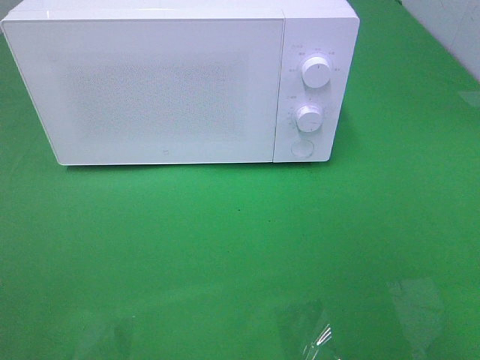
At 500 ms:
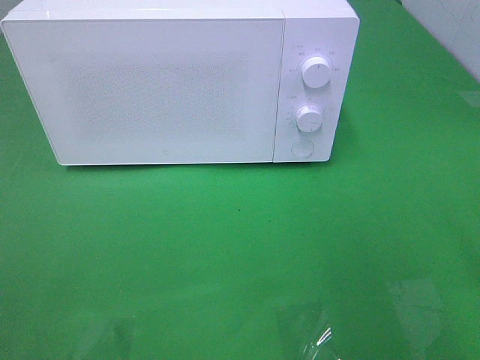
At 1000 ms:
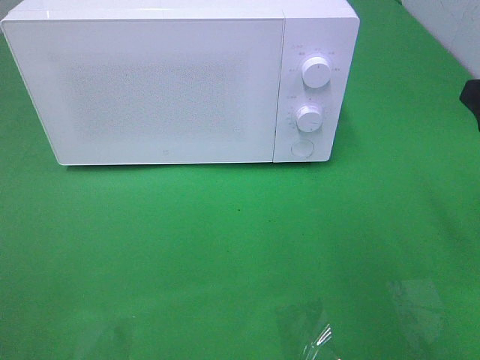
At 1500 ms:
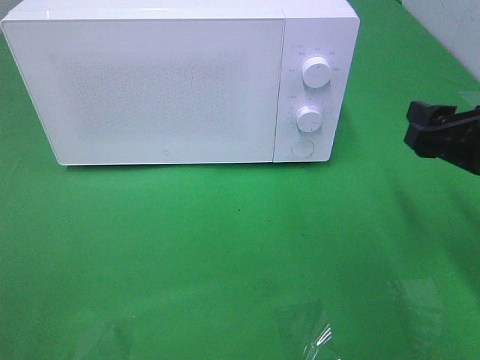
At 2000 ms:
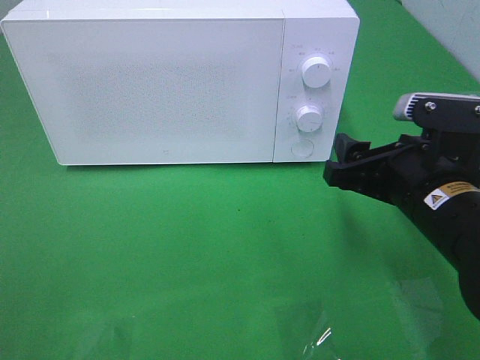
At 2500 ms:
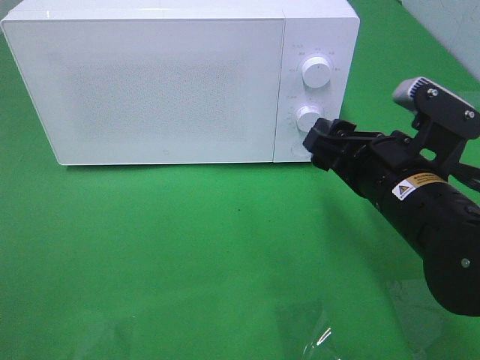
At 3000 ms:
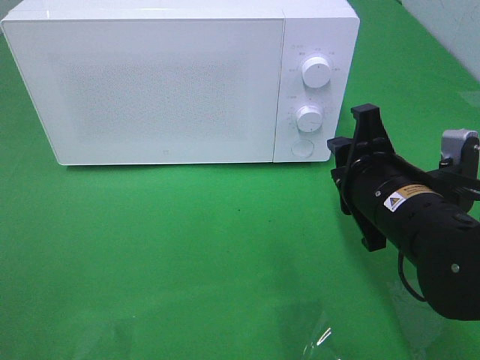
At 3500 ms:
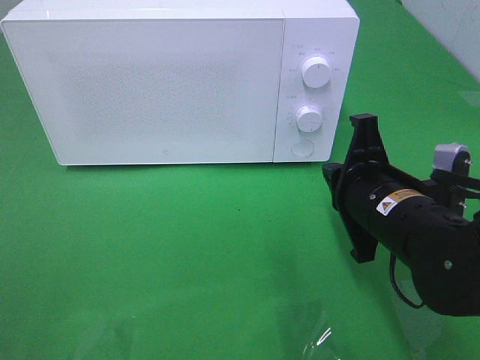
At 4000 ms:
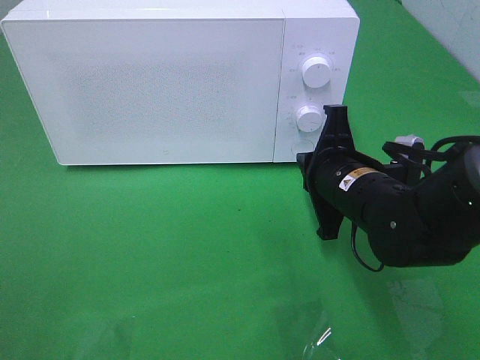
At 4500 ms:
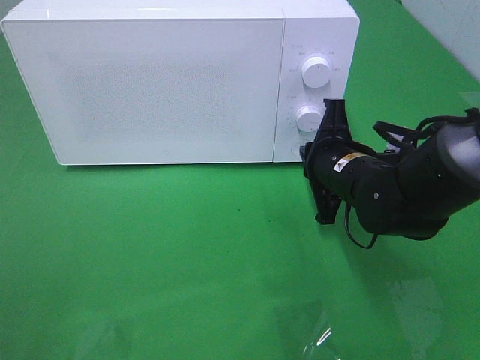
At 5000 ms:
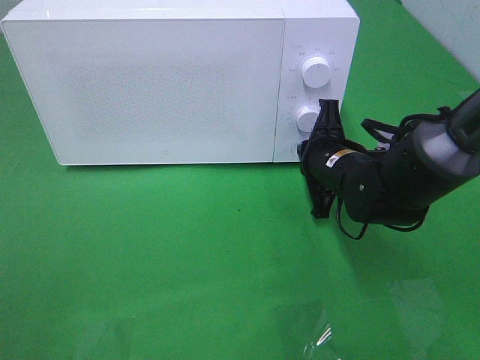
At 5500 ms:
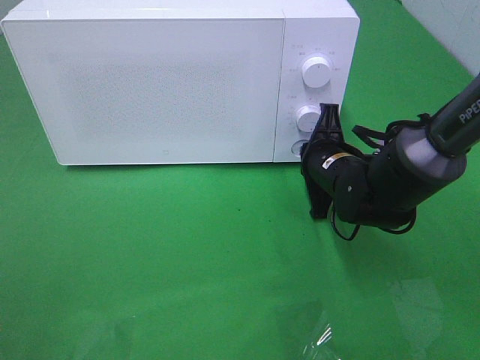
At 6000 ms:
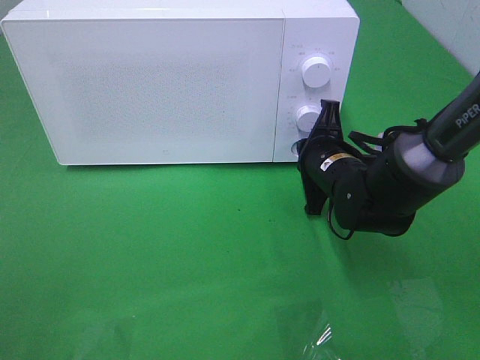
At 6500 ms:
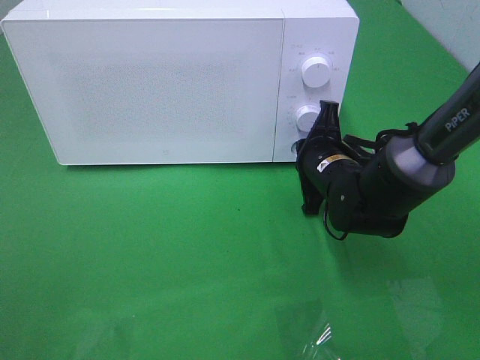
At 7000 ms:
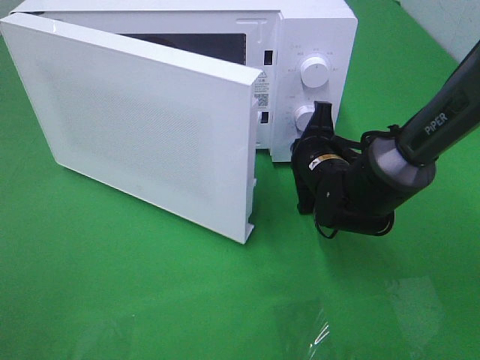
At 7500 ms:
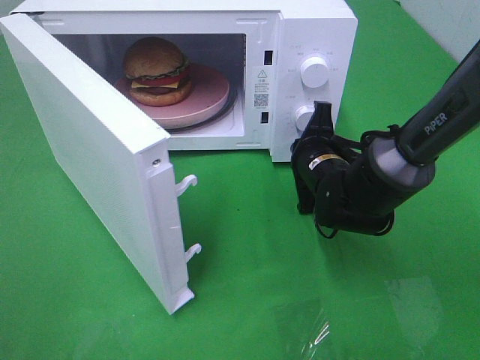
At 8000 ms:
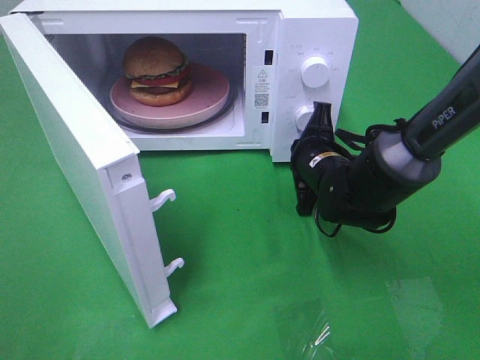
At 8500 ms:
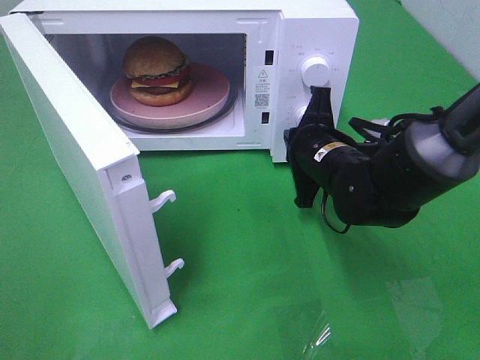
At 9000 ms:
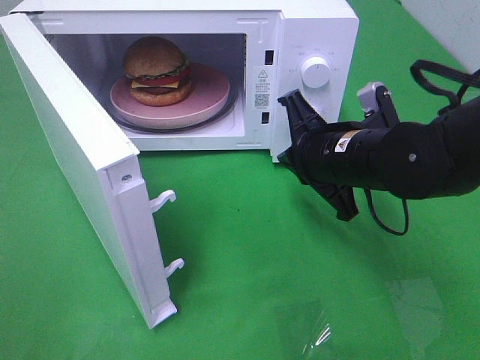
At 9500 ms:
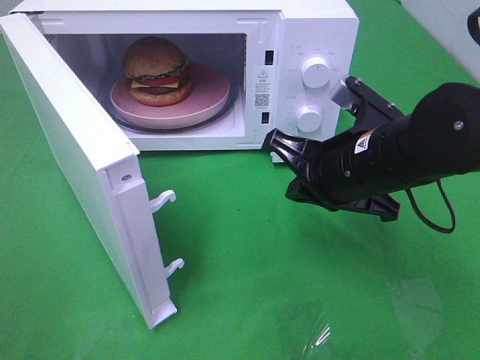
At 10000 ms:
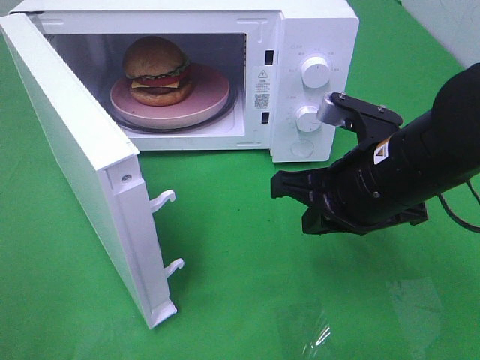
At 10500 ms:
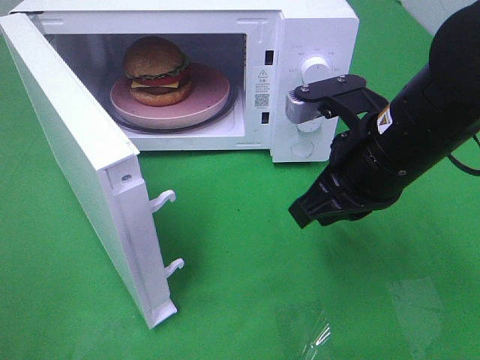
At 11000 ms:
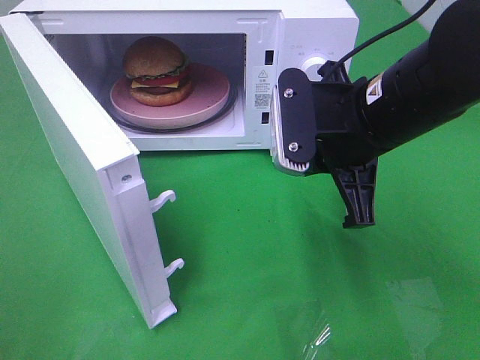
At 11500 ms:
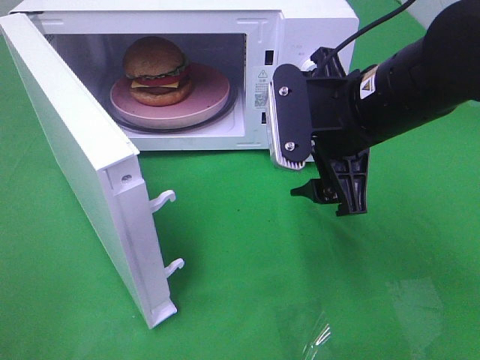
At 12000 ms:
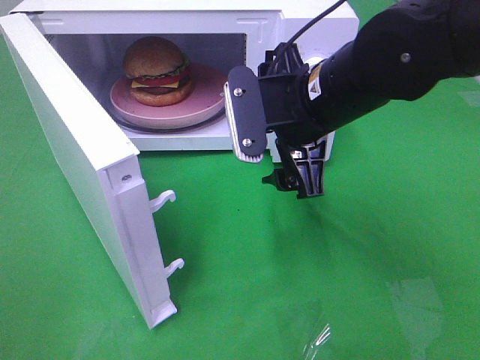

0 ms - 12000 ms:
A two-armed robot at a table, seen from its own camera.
Task of the whole recording: Heat the burger.
Step, 0 ms - 8500 ms: Right hand: press the switch.
0 ms - 2000 ms: The right gripper moves forward, downward and to the left, approximately 25 cm.
2000 ms - 4000 ms: The right gripper travels forward by roughly 5 cm, and closes up.
4000 ms - 6000 ms: The right gripper heads forward, covering roughly 5 cm.
8000 ms - 10000 ms: The right gripper shifts about 15 cm backward and upward.
10000 ms - 12000 ms: The right gripper heads forward and to the left, covering about 10 cm, and opens up.

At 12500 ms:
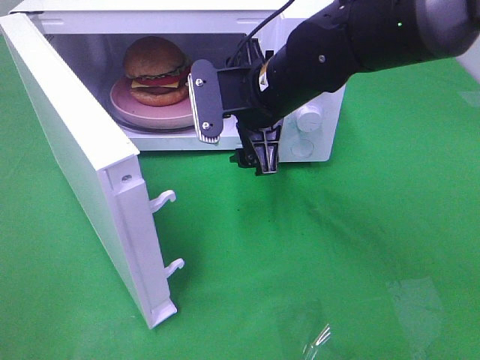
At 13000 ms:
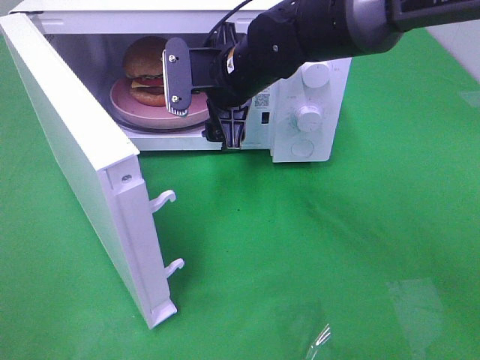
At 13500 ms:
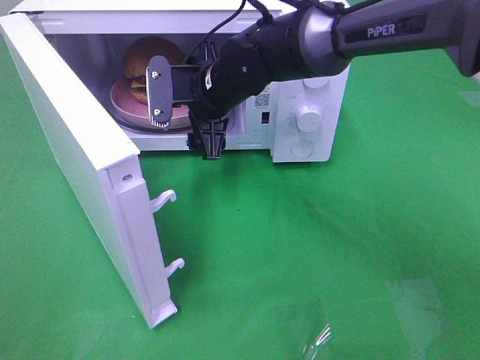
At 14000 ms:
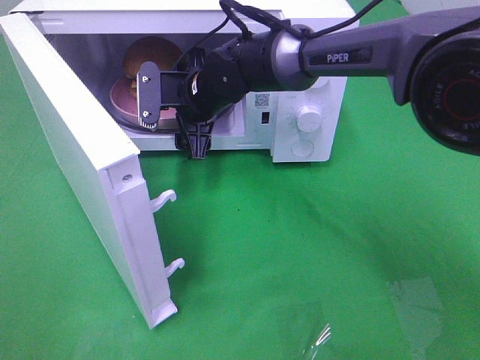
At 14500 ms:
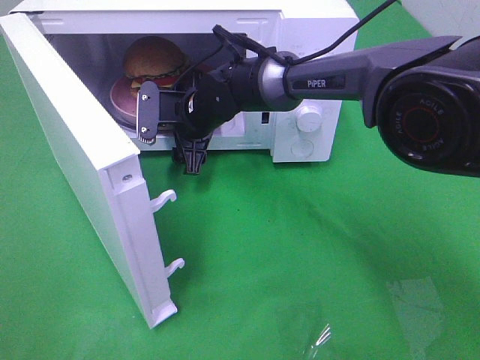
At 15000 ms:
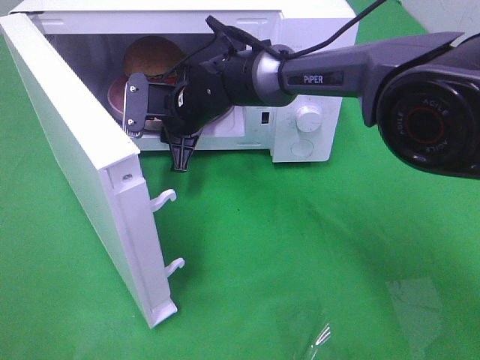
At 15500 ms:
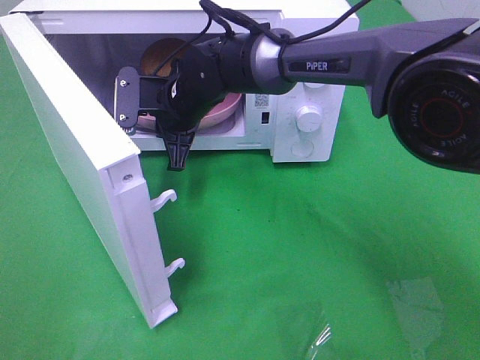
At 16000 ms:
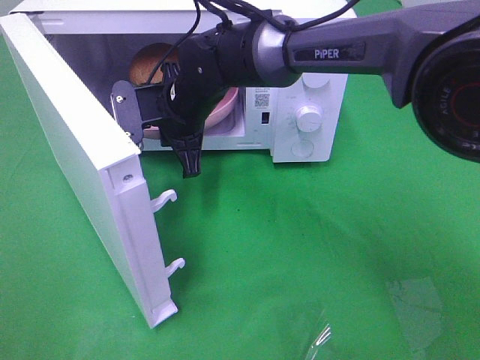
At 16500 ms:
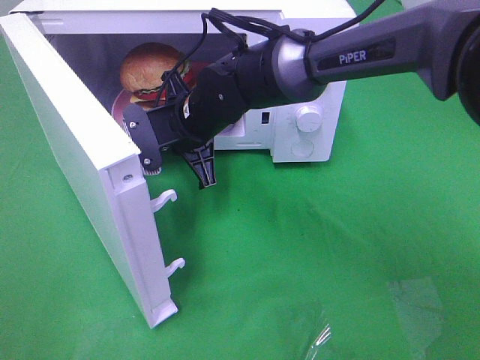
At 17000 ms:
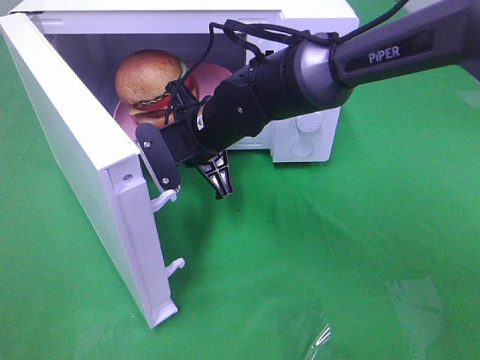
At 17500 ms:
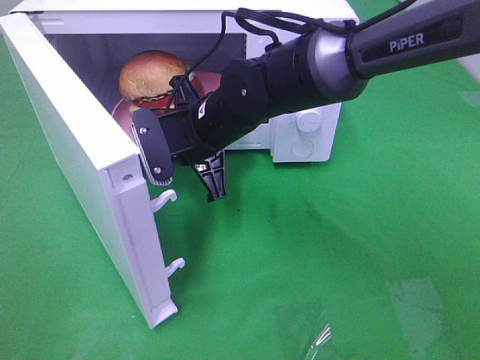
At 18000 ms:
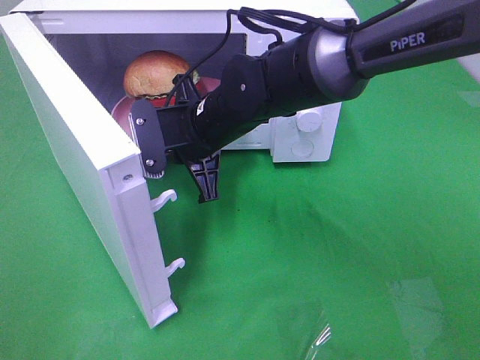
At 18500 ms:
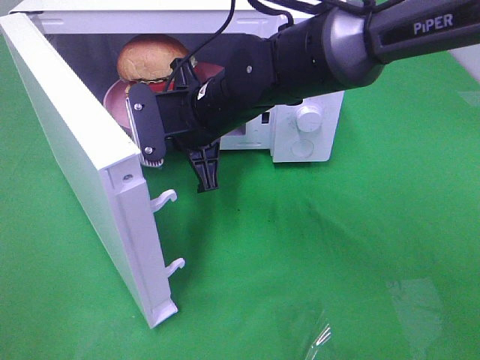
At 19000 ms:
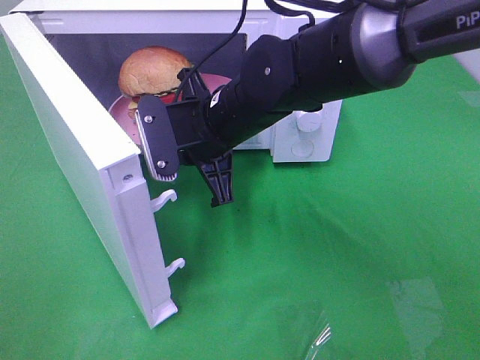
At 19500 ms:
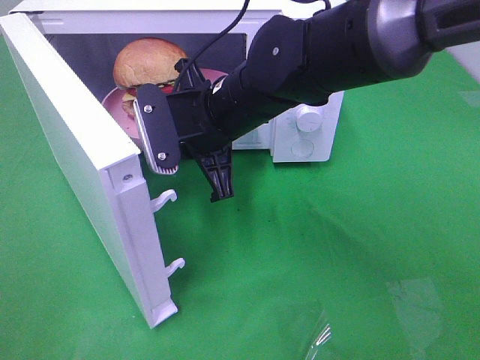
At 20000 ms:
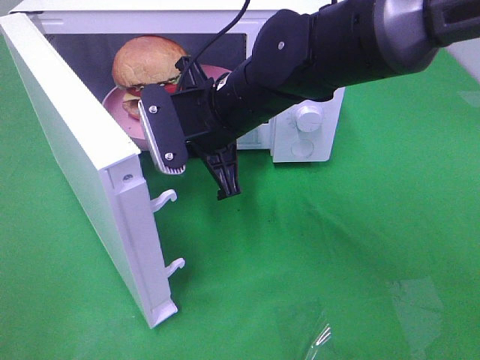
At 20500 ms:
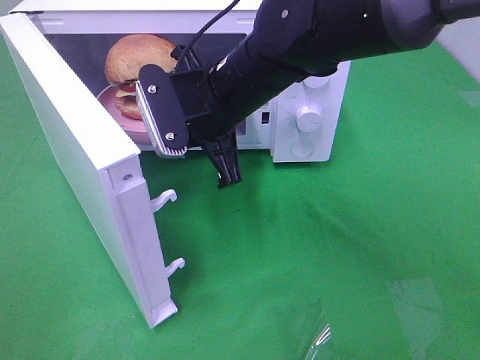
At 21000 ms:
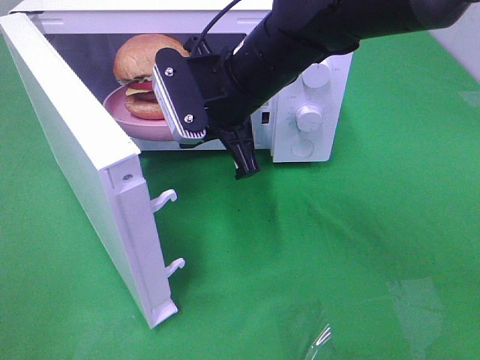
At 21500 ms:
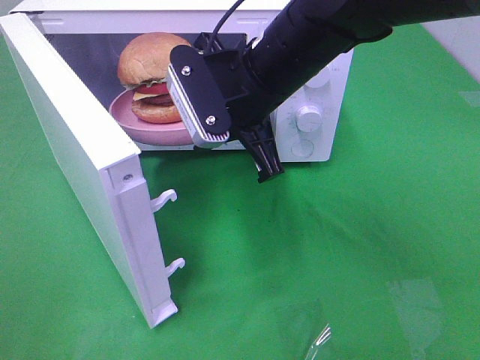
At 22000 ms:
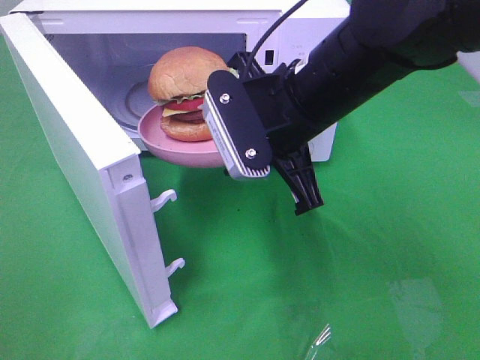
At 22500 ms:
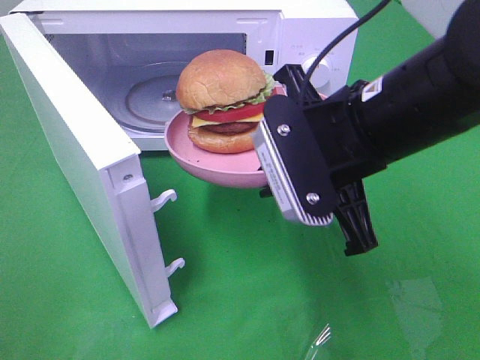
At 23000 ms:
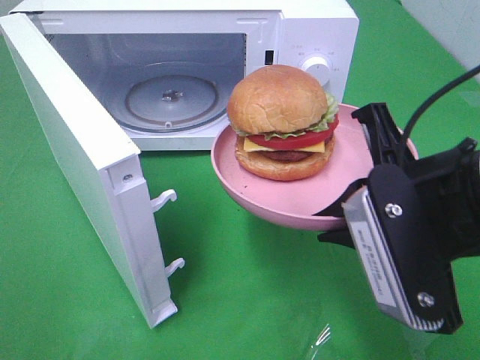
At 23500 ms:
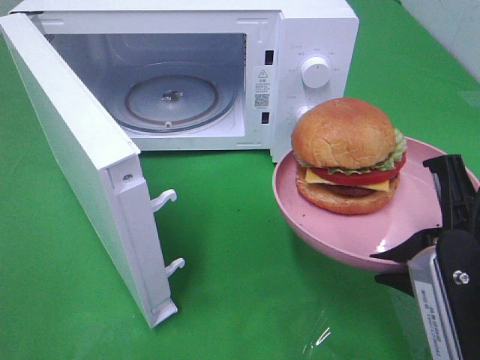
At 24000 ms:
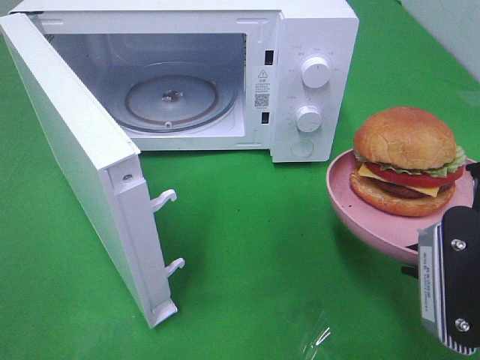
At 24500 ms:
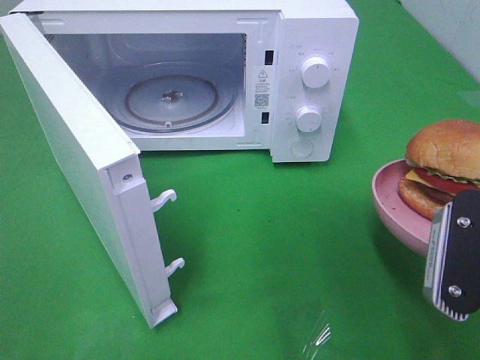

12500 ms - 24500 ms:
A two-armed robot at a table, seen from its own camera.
Task of the whole recording: Heat the burger.
Step, 12500 ms - 15000 ms: Right hand: grab the plate with the hamburger.
12500 ms - 14500 ms: The right gripper goes about 15 cm forward, downward and to the left.
14500 ms - 16500 ms: The right gripper heads backward, covering about 5 cm, and closes its fingers.
16500 ms - 18500 ms: The right gripper moves approximately 5 cm.
18500 ms - 20500 ms: The grippers make only small movements.
20500 ms - 22500 ms: The right gripper travels to the right and backward by roughly 15 cm.
22500 ms - 24500 ms: The right gripper goes about 15 cm to the right, backward and downward.

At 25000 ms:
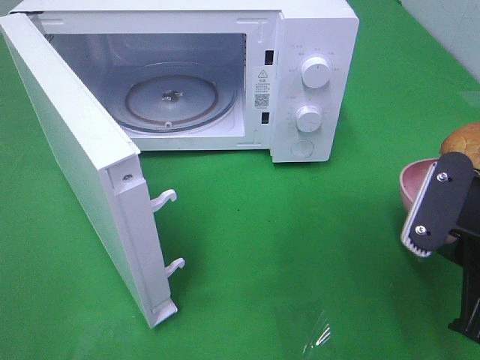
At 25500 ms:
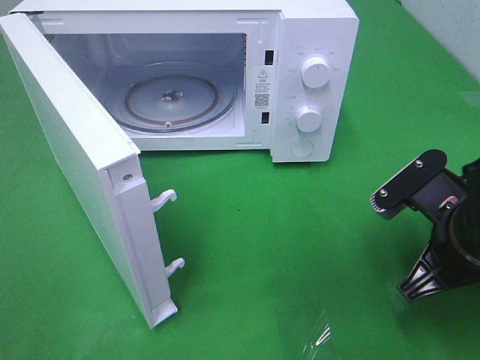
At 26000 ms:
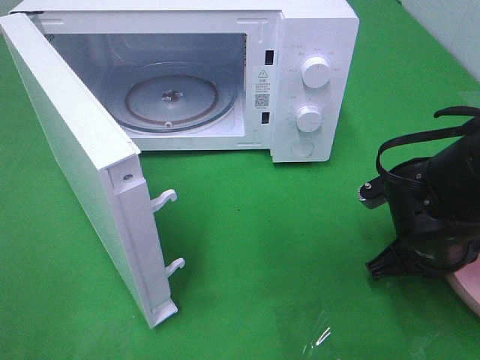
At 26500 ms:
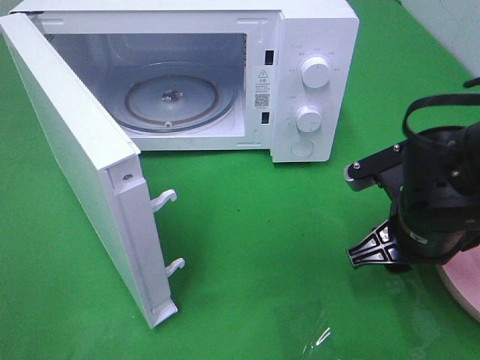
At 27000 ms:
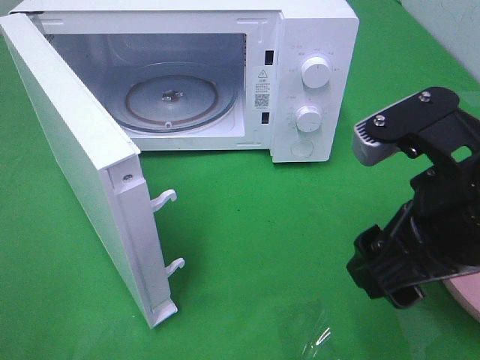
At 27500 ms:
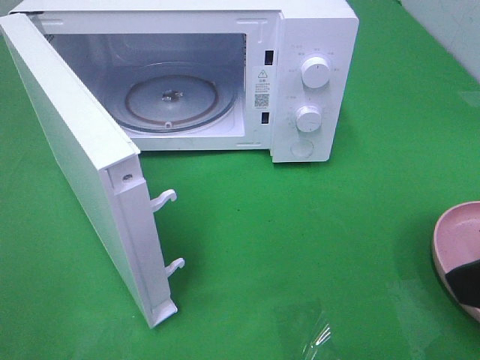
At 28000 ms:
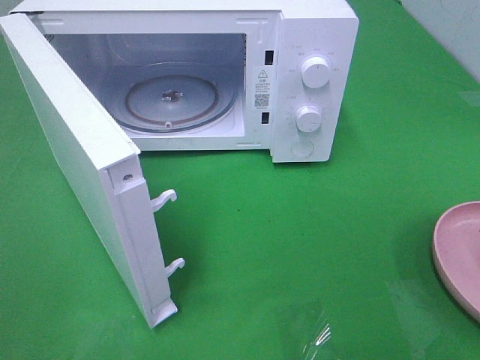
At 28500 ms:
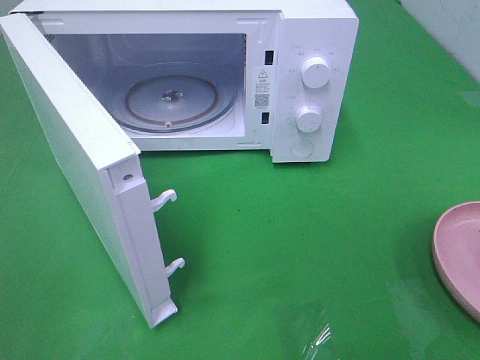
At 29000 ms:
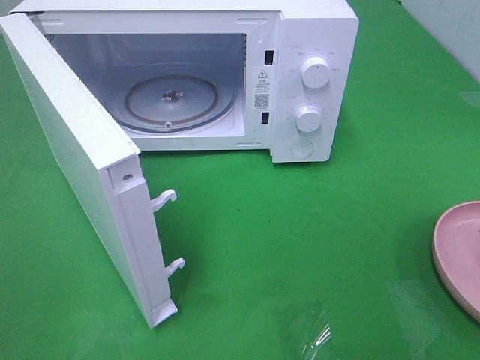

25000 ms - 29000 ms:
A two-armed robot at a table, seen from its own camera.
Task of the whole recording: Heat the burger.
25000 ms - 27000 ms: The right gripper travels upward and to the left by some 10 cm, and opens.
27000 ms - 29000 ms: The right gripper travels backward and to the right by approximately 20 cm.
